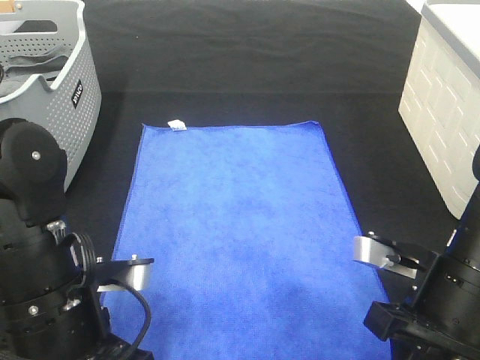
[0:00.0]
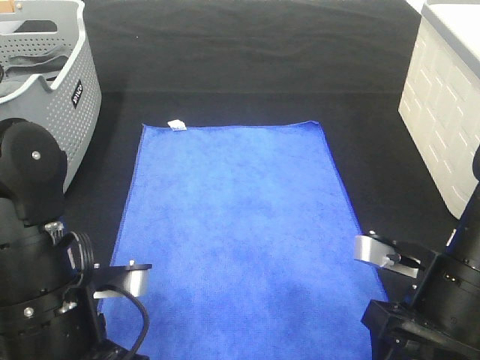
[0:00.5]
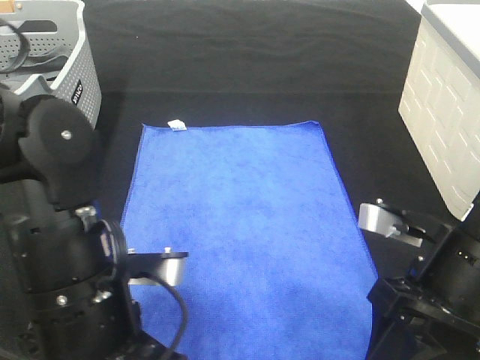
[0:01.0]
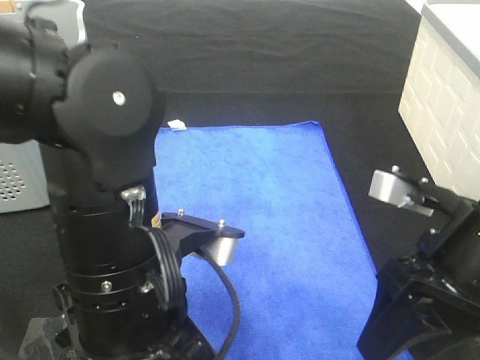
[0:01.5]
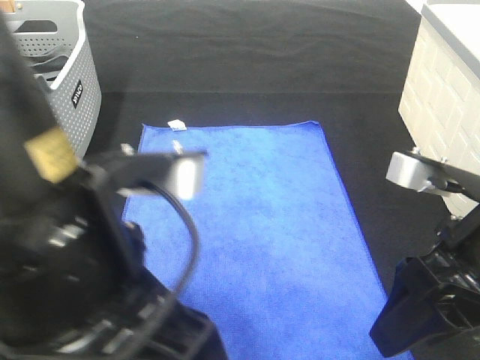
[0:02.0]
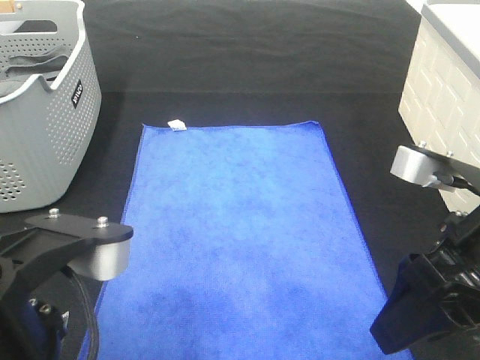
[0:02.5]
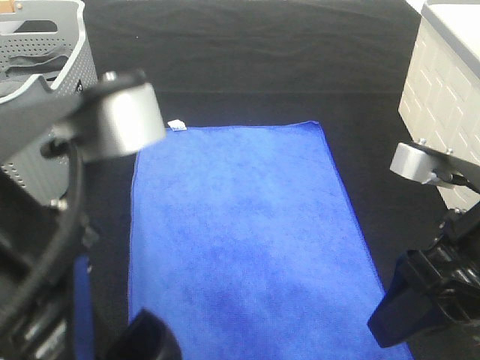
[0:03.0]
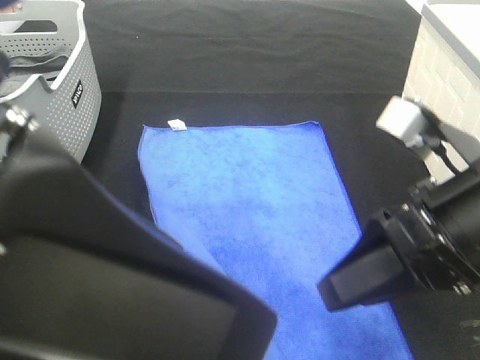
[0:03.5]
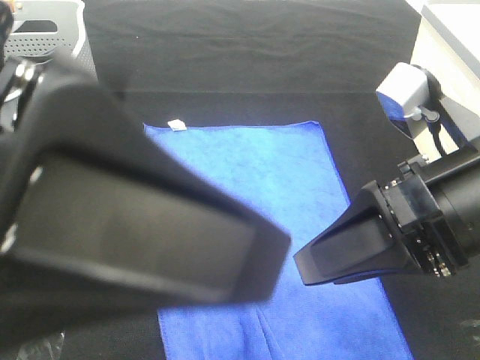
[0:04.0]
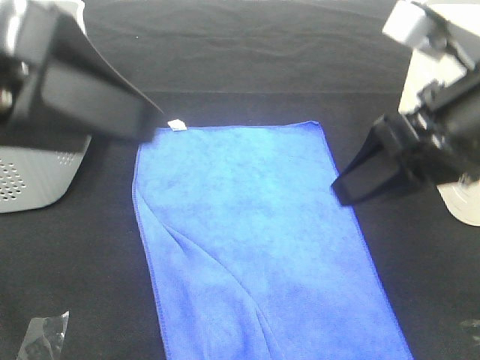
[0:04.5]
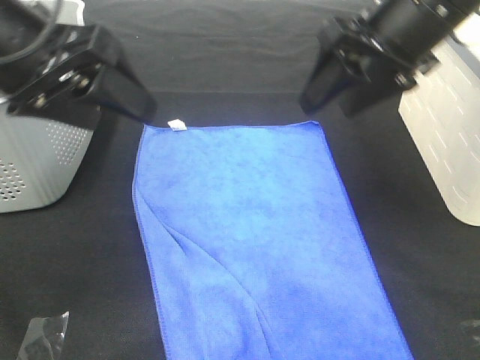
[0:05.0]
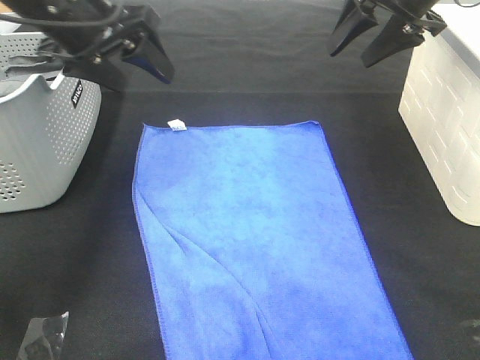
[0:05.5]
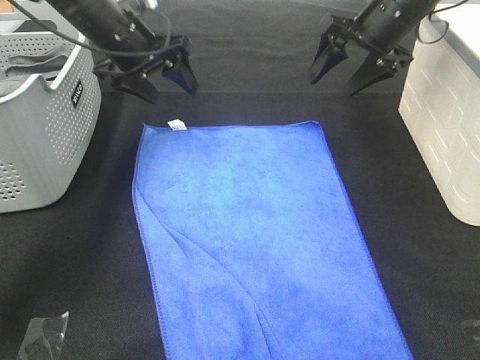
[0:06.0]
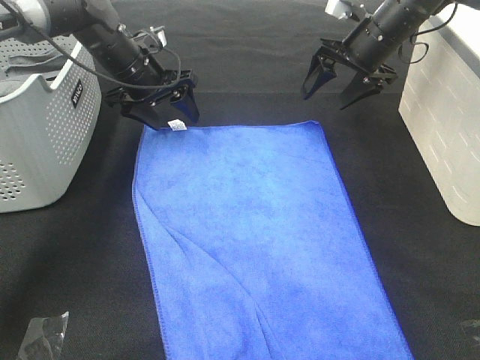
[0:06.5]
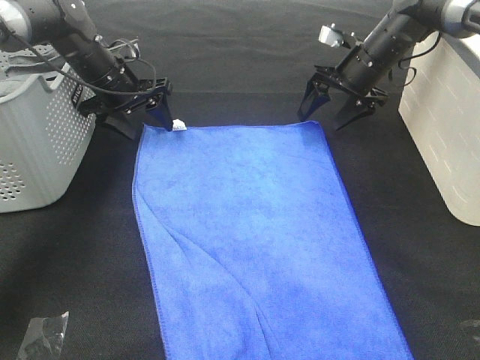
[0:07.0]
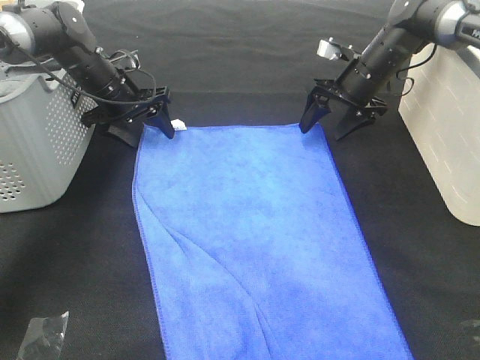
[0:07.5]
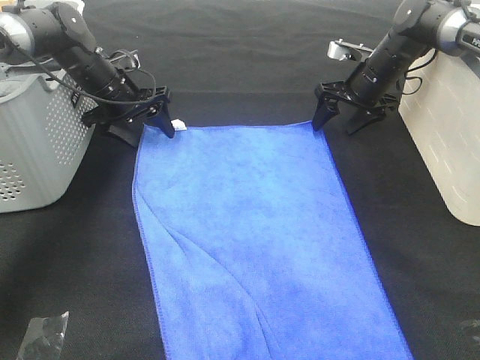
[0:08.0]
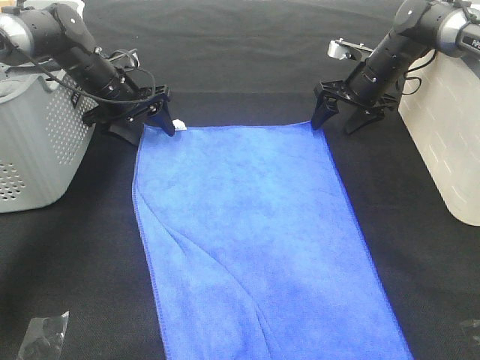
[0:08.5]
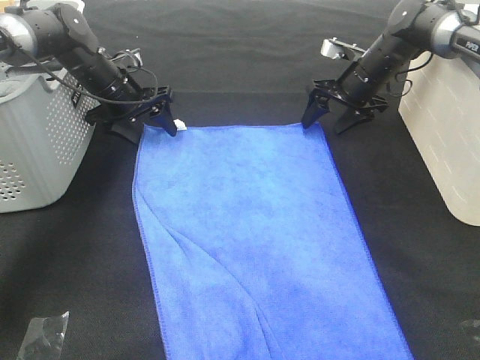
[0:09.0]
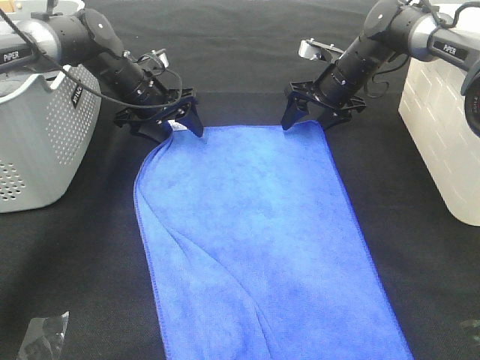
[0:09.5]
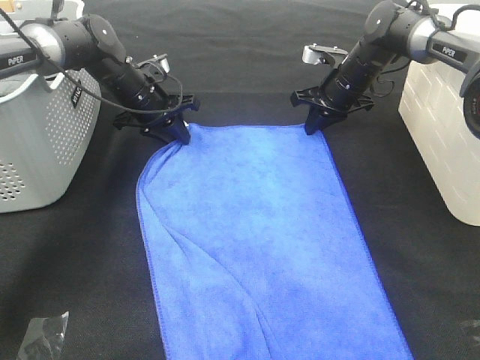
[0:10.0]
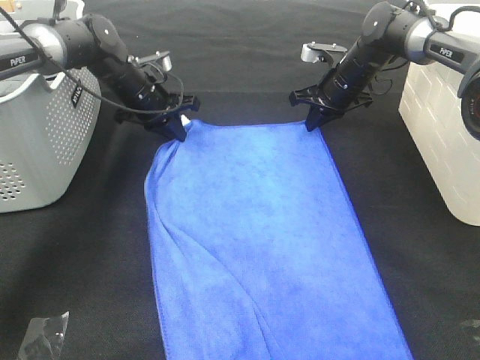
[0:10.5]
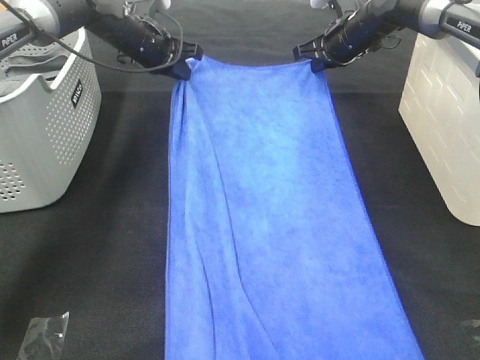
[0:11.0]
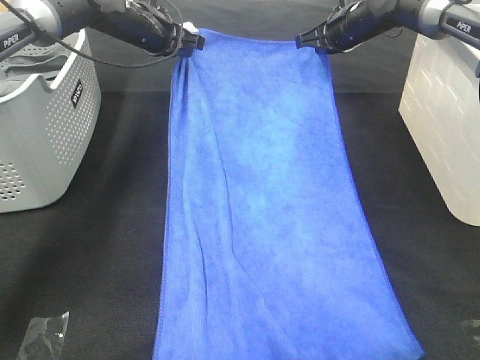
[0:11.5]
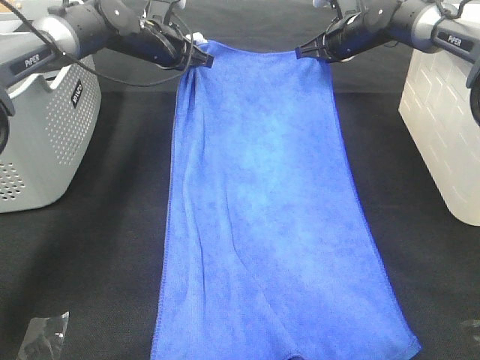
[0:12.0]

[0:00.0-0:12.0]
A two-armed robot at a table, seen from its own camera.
Task of the whole recording: Remove the towel and place it.
Step, 0:00.0 to 0:06.5: Right hand:adjust the blue towel.
Step, 0:00.0 to 0:10.5: Left hand:adjust the blue towel.
0:00.0 to 0:02.0: The right gripper travels upward by some 10 cm, and opens up. The left gripper is displaced upward by roughly 15 cm, and opens up.
0:02.0 to 0:04.0: The left gripper goes approximately 10 cm upward.
0:04.0 to 0:06.0: The right gripper moves forward, roughly 30 cm, while the left gripper travels forward and downward by roughly 40 cm.
0:06.0 to 0:08.0: The left gripper is displaced downward by about 10 cm. Meanwhile the right gripper travels downward and forward by roughly 10 cm.
0:08.0 to 0:10.0: The left gripper closes up. The right gripper closes its fingers.
0:10.0 to 0:12.0: The right gripper is displaced upward by roughly 5 cm, while the left gripper shifts roughly 10 cm upward and forward.

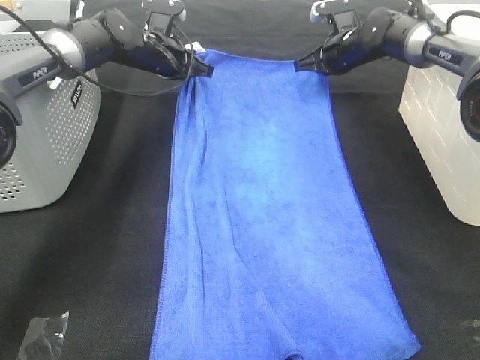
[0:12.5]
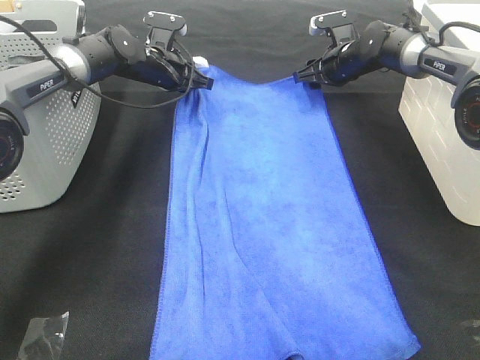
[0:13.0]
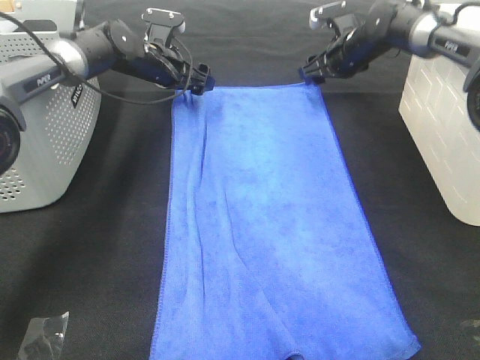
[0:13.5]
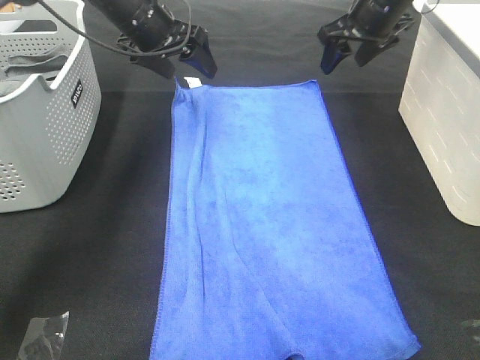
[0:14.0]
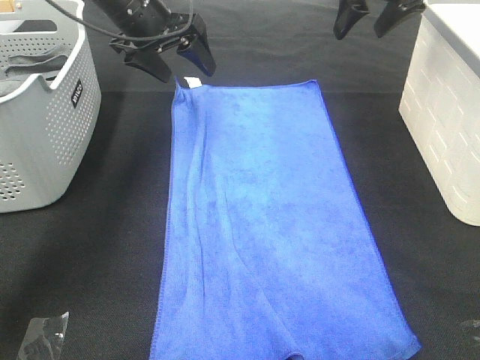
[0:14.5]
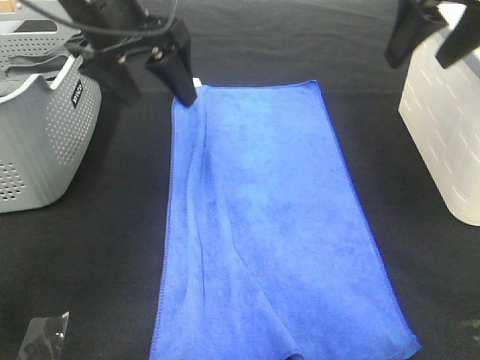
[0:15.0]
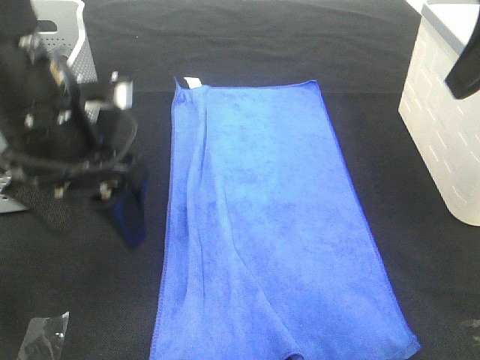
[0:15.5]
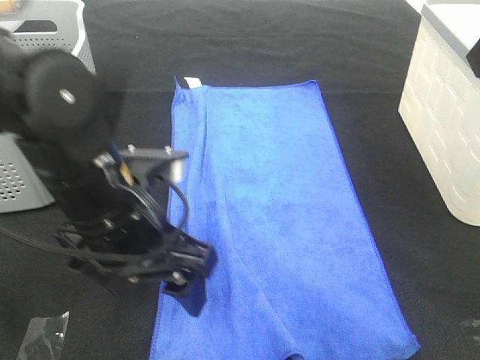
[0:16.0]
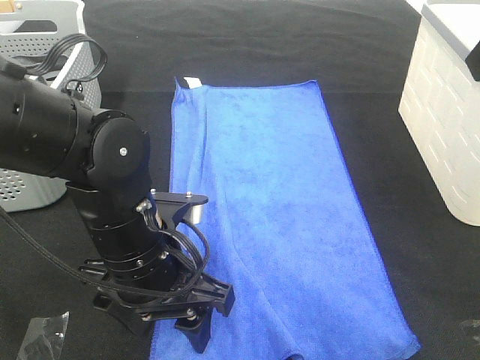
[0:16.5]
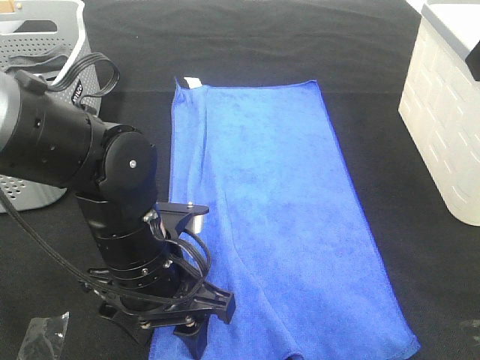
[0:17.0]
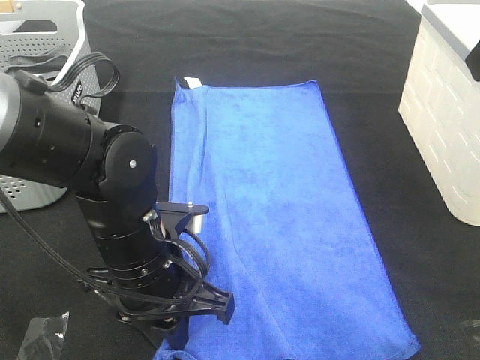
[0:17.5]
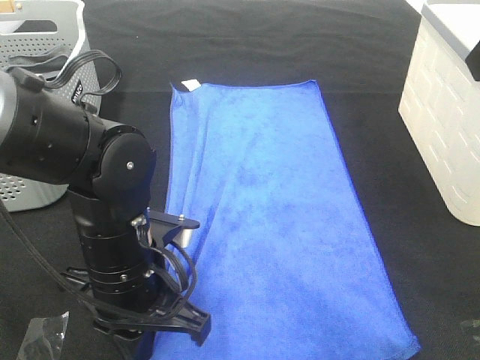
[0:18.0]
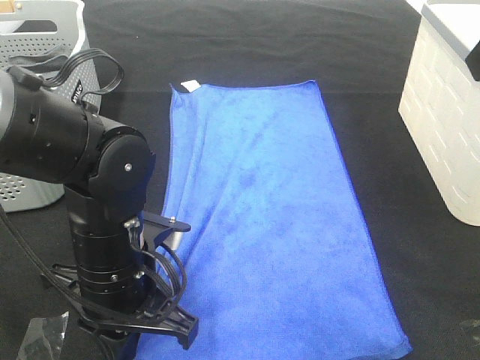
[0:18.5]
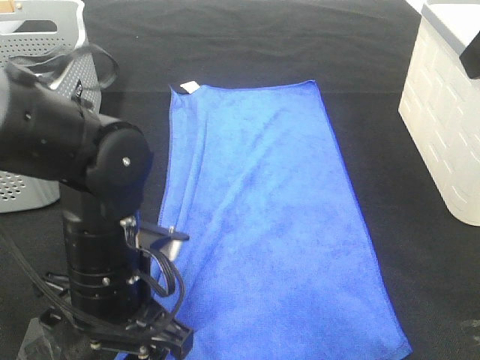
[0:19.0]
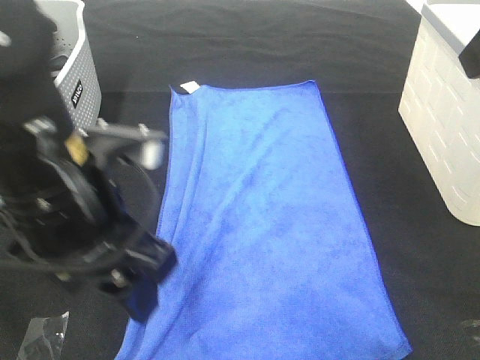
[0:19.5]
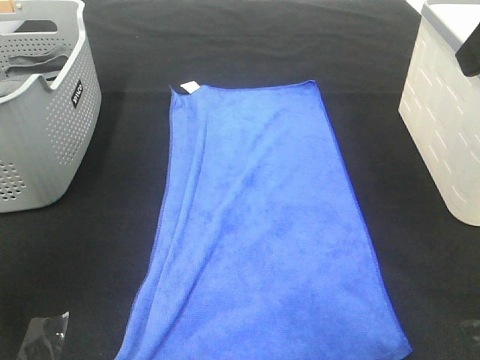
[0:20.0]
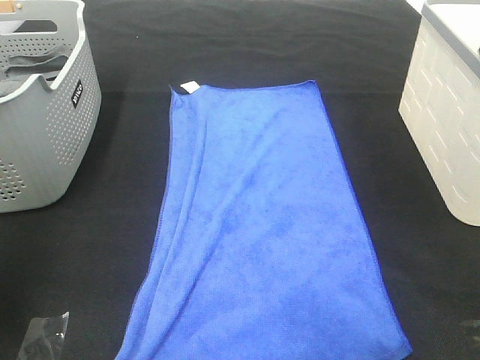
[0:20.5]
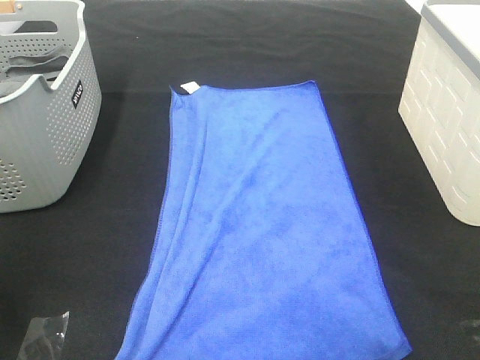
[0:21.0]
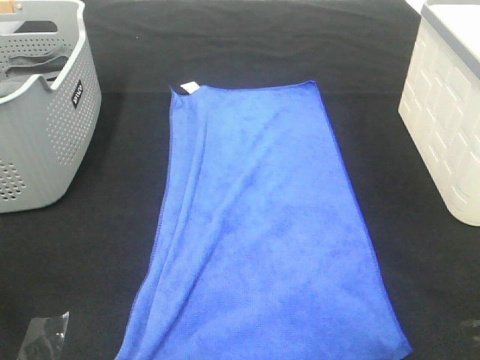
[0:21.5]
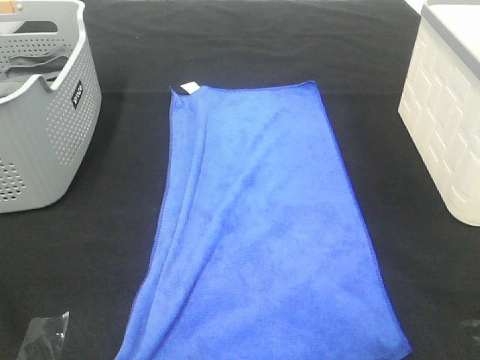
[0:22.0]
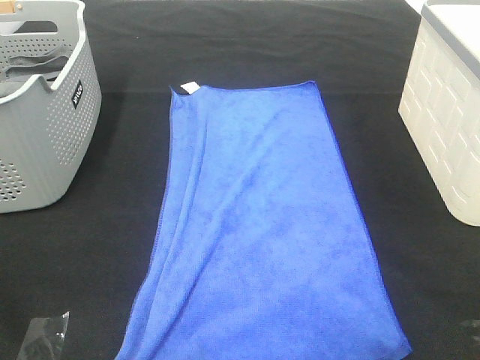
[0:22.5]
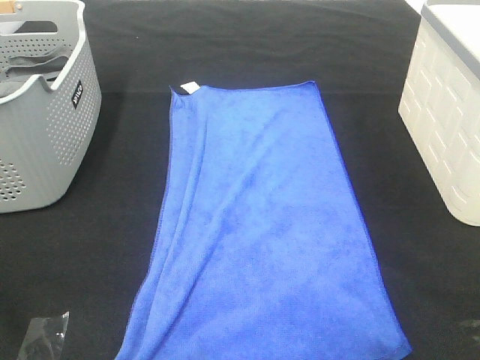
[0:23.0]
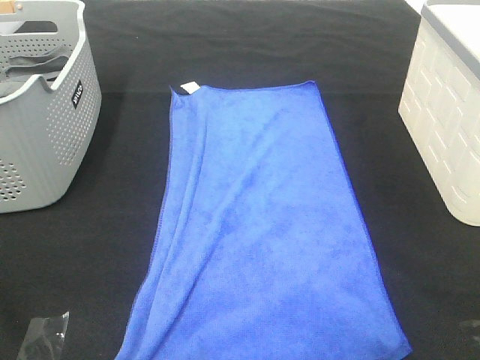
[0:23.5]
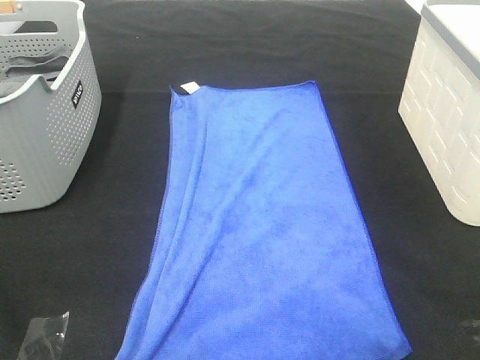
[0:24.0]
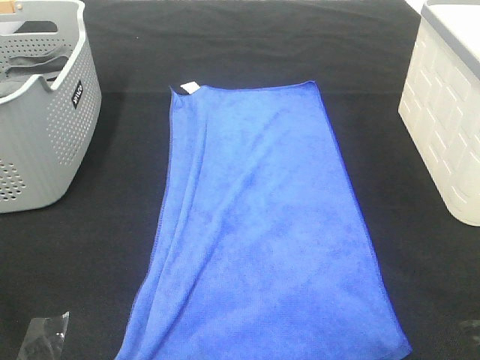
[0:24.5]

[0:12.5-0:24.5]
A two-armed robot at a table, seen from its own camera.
Task of the whole recording: Remove the towel and place it.
0:12.5 to 0:14.5: The left gripper shifts approximately 15 cm upward and backward, and opens its fingers. The right gripper moves upward and backward, approximately 20 cm, and opens up.
0:14.5 to 0:16.5: The right gripper heads backward, covering approximately 25 cm; the left gripper moves backward and downward, about 30 cm.
0:16.5 to 0:18.5: The left gripper closes.
0:18.5 to 0:20.5: The left gripper heads upward and to the left, covering approximately 35 cm, and opens.
0:20.5 to 0:22.5: Both grippers travel together backward and downward, about 20 cm.
0:22.5 to 0:24.5: Neither gripper changes place.

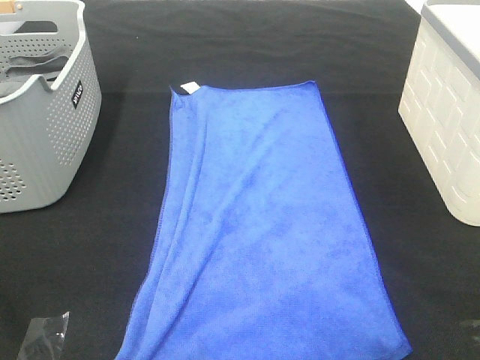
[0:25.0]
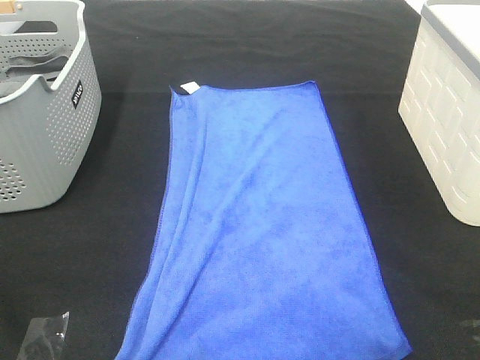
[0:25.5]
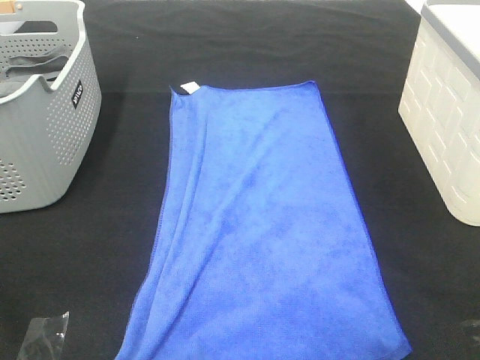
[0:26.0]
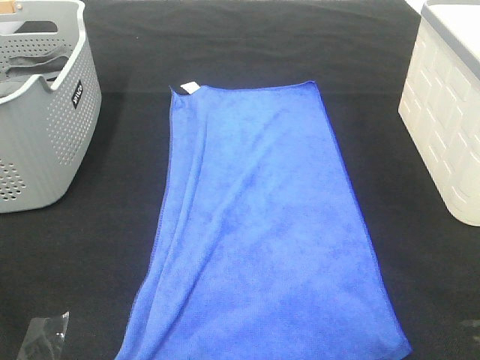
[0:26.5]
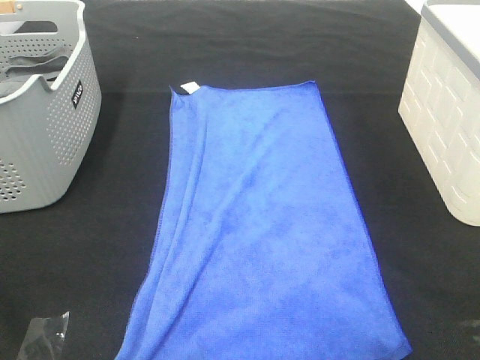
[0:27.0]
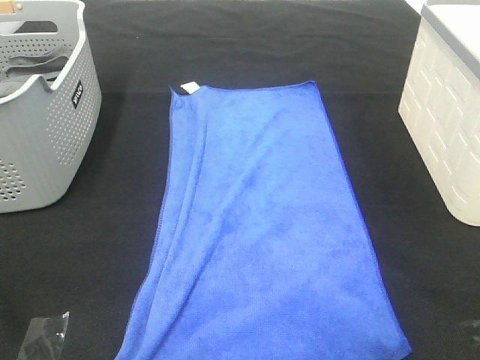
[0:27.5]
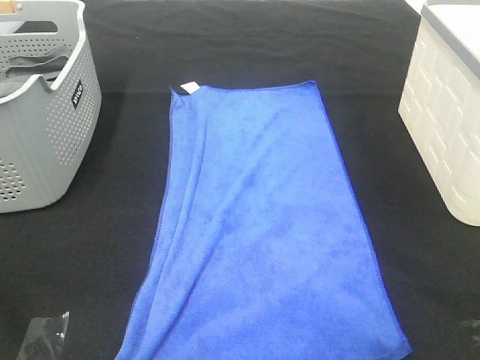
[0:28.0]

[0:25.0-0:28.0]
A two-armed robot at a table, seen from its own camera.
Task of the whole recording: Remove the towel and place it.
0:25.0 to 0:28.0: Both grippers stay about where they are.
